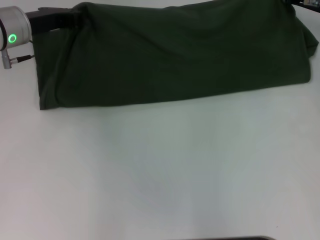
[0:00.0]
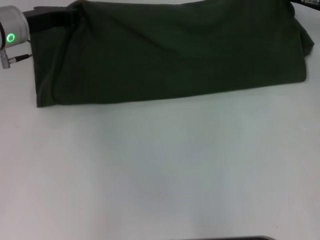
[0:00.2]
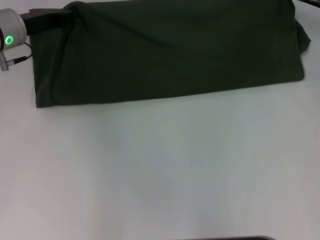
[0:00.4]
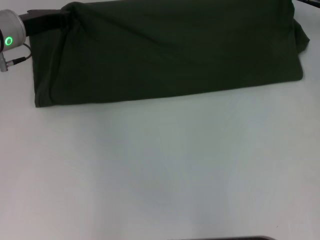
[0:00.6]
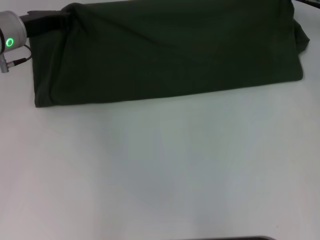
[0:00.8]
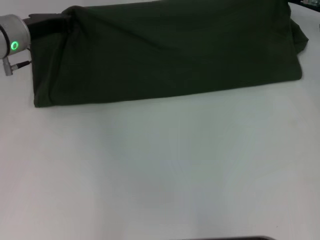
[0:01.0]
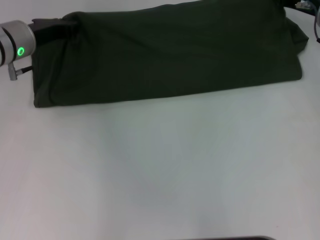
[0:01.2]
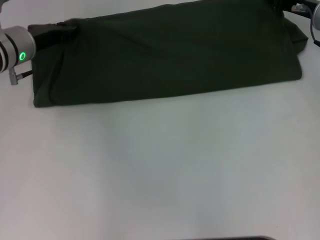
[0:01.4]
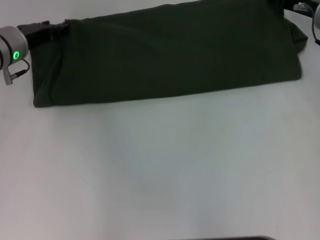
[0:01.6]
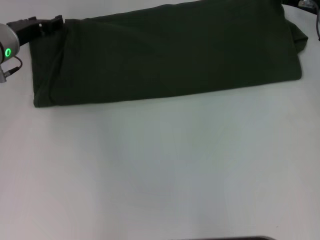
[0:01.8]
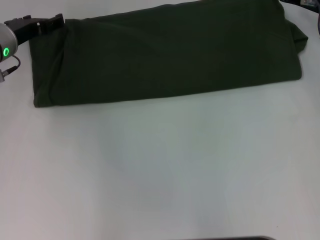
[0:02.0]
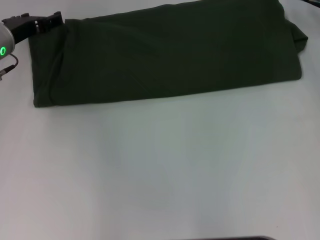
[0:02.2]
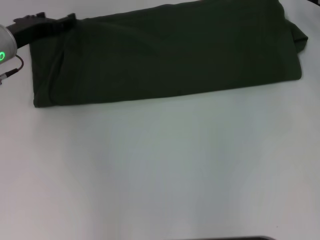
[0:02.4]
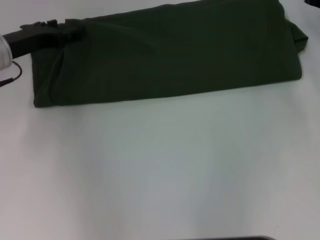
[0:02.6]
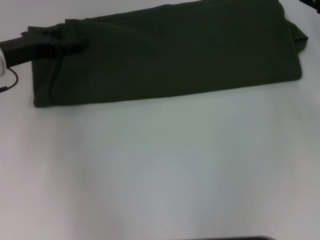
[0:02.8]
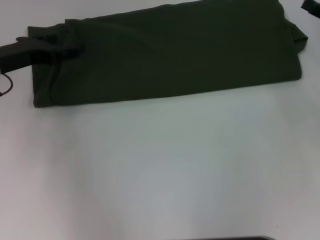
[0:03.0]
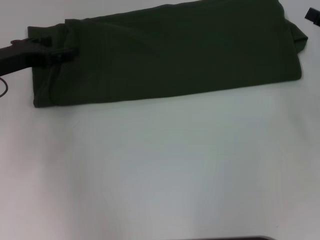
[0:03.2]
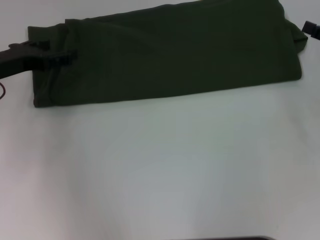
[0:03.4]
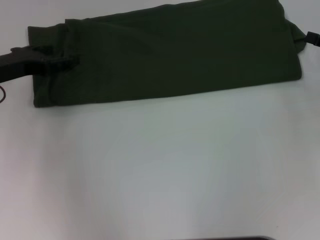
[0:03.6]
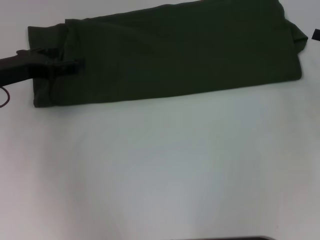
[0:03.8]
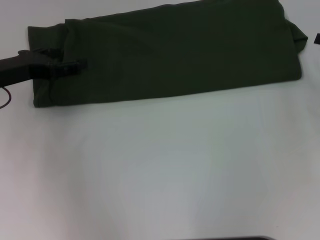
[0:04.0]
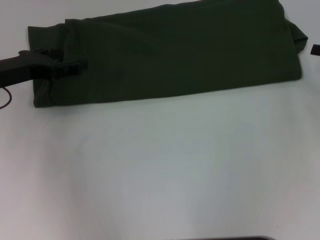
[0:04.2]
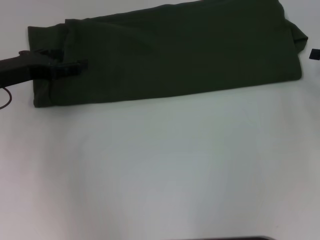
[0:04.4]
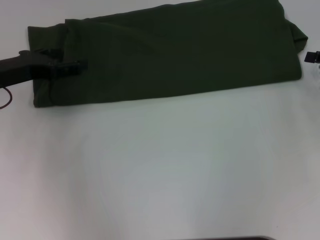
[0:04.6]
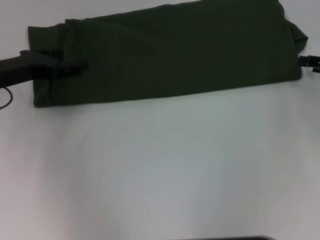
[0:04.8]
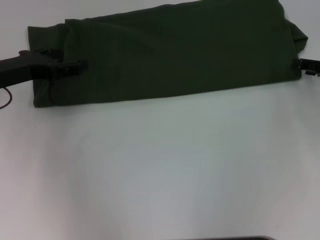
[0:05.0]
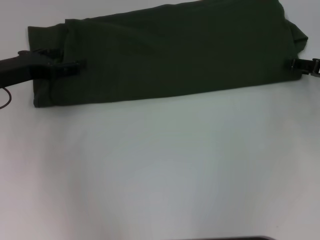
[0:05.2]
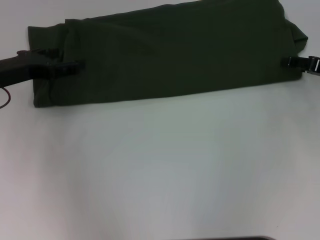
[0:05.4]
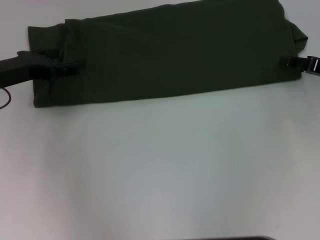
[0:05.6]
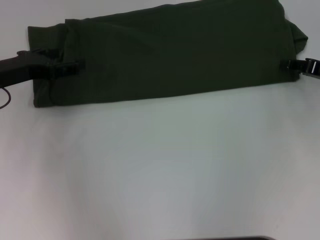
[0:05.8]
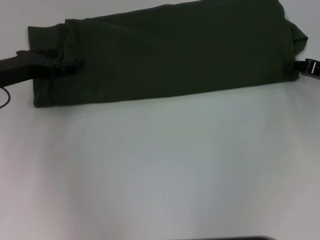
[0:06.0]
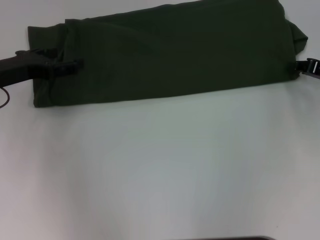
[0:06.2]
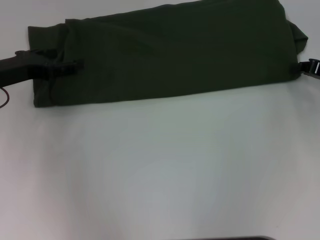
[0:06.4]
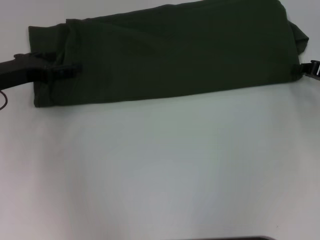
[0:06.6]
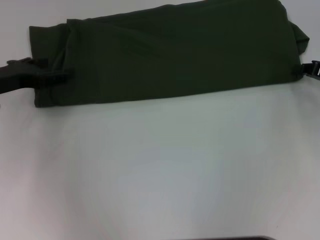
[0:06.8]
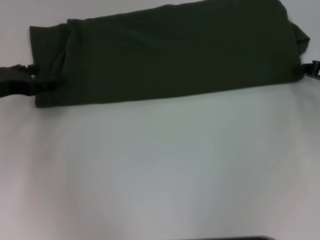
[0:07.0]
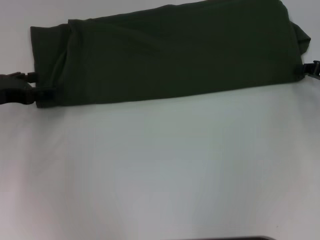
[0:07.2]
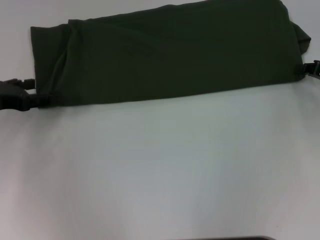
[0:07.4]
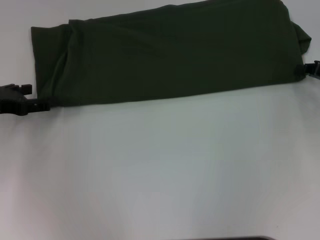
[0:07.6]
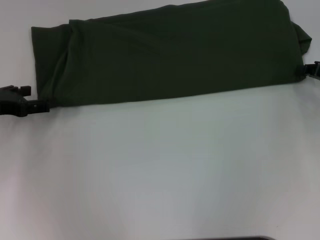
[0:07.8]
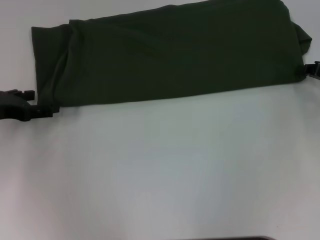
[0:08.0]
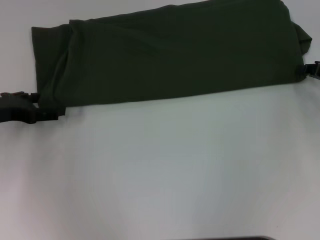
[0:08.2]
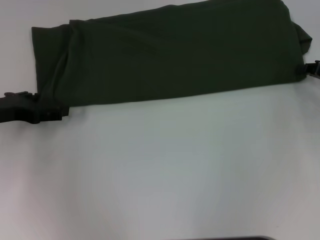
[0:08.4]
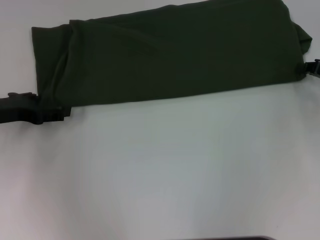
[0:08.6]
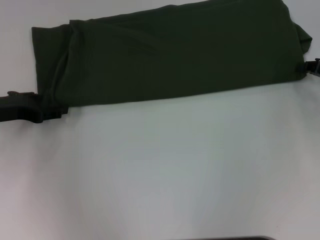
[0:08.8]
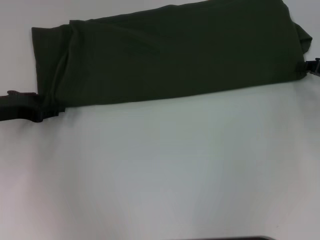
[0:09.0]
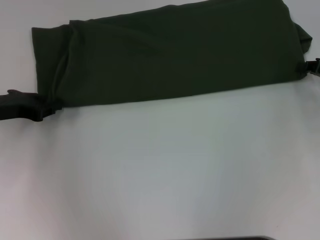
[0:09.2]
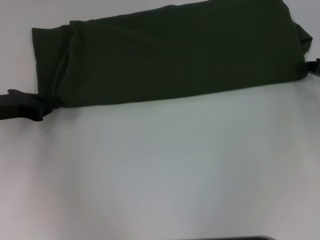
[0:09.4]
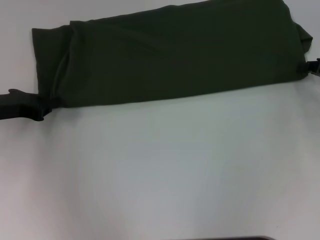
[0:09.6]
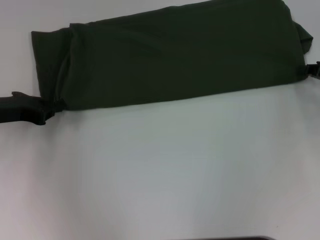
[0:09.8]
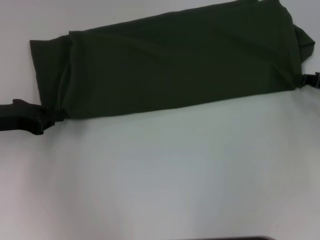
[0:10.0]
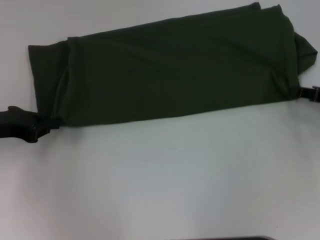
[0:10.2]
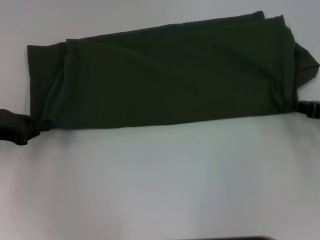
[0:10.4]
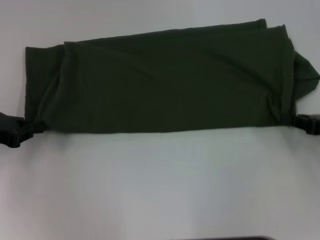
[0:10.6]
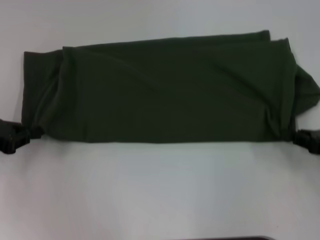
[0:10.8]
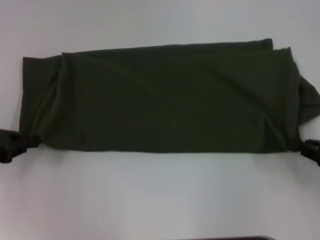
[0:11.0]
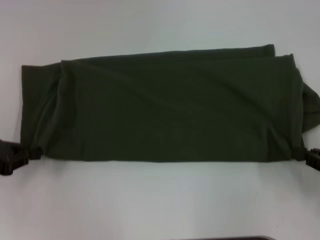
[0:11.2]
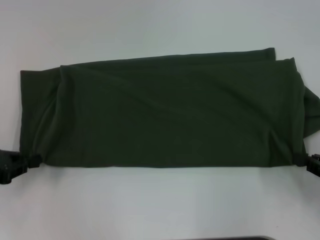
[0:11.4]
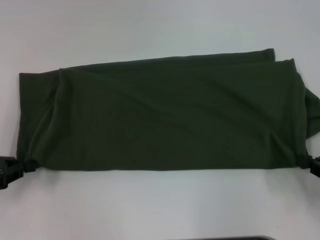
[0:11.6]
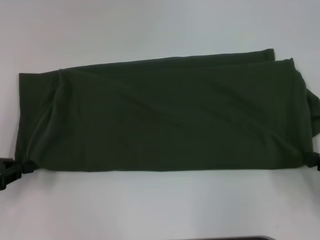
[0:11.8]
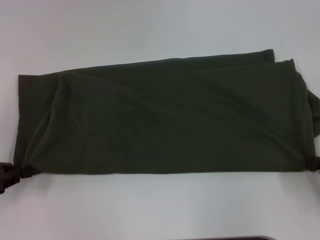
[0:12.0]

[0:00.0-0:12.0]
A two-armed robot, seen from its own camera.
Step, 0:00.0 to 0:02.2: Fold the clothes with your left hand.
Step, 0:00.0 to 0:02.2: Fold the clothes with your right hand.
0:00.0 to 0:01.6: The left gripper opens its fingers, while the right gripper opens up.
0:01.6 to 0:03.0: The left gripper shifts about 5 cm backward, and opens its fingers. Meanwhile the right gripper is displaced backward and to the right by roughly 10 cm, and opens.
0:04.4 to 0:06.0: The right gripper changes place by roughly 5 cm.
0:06.0 to 0:07.6: The left gripper changes place by some 5 cm; the right gripper closes its fingers.
0:07.6 to 0:09.0: The grippers make only small movements.
0:09.0 to 0:10.4: The right gripper goes about 5 cm backward. Meanwhile the left gripper closes.
0:10.4 to 0:12.0: The right gripper moves backward, roughly 10 cm; the left gripper moves backward, about 5 cm.

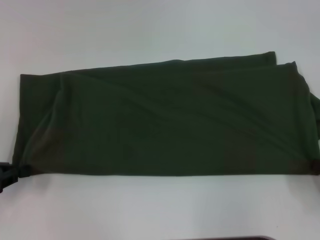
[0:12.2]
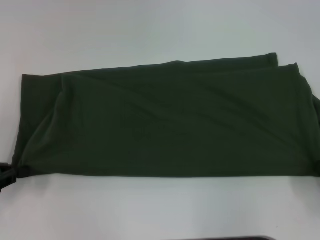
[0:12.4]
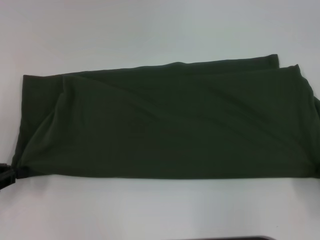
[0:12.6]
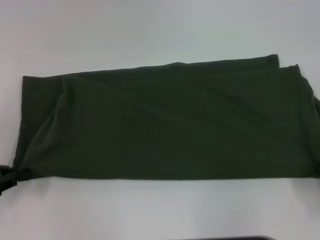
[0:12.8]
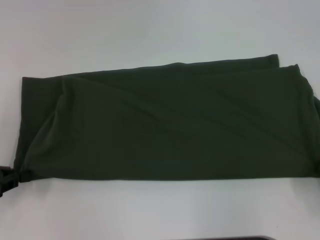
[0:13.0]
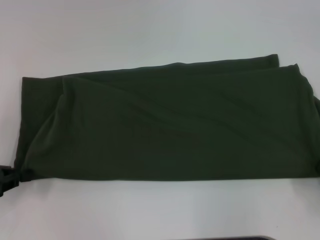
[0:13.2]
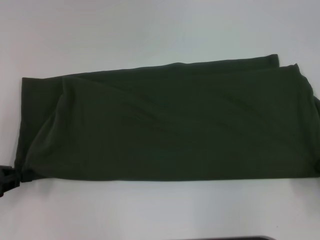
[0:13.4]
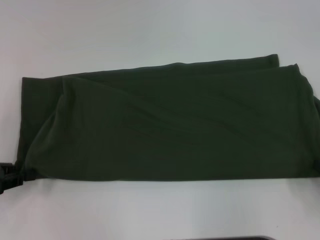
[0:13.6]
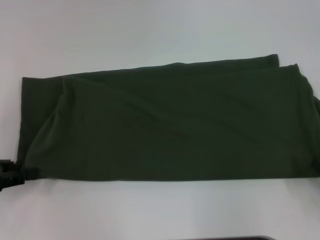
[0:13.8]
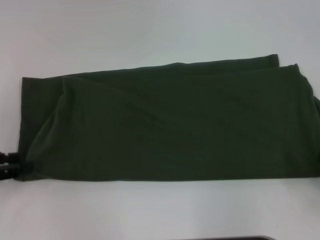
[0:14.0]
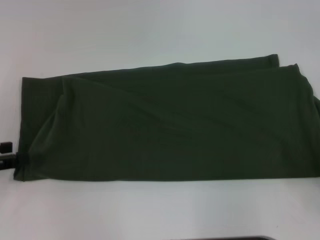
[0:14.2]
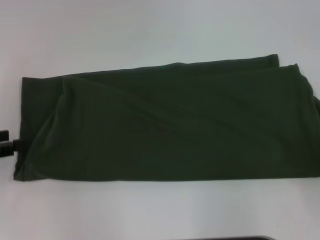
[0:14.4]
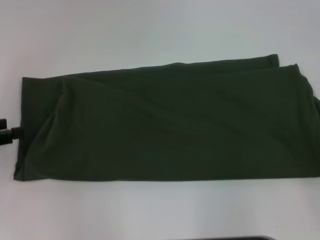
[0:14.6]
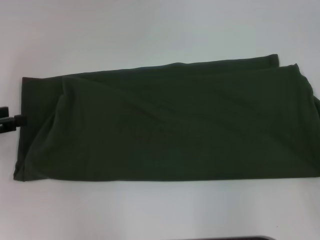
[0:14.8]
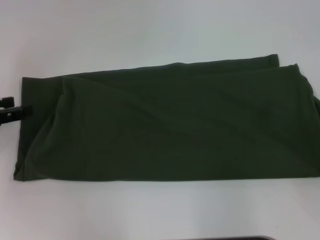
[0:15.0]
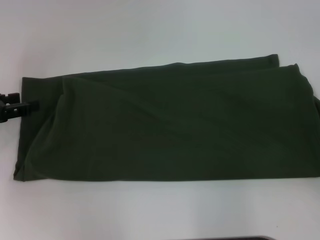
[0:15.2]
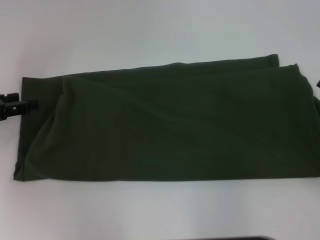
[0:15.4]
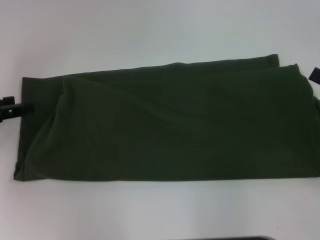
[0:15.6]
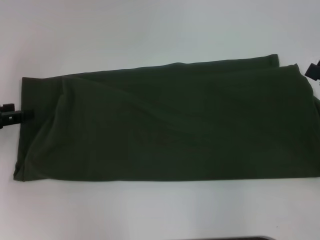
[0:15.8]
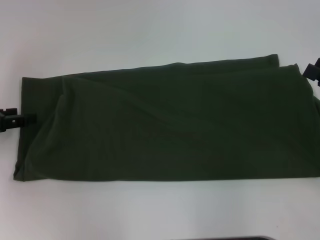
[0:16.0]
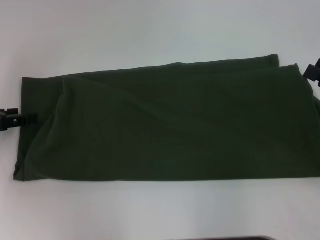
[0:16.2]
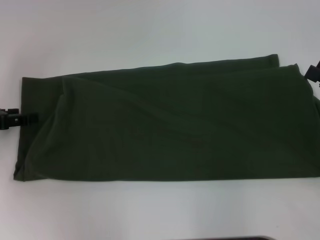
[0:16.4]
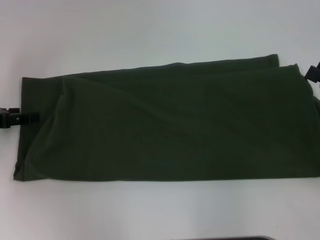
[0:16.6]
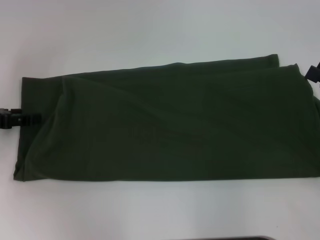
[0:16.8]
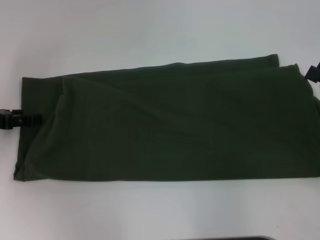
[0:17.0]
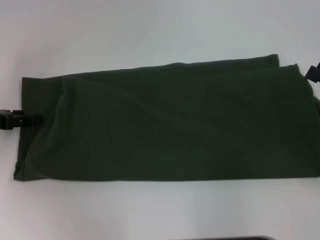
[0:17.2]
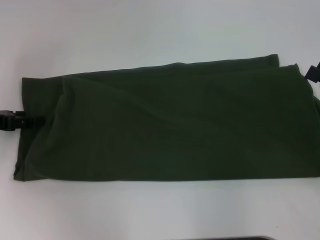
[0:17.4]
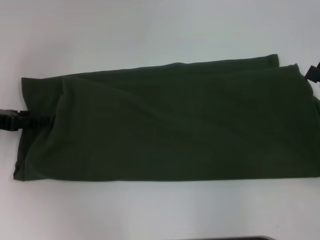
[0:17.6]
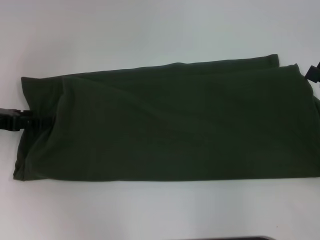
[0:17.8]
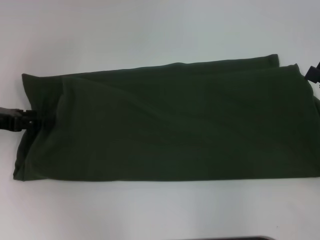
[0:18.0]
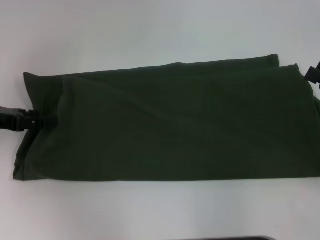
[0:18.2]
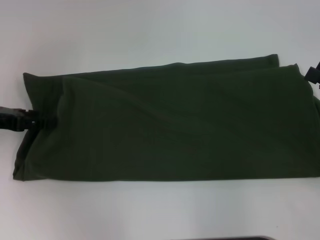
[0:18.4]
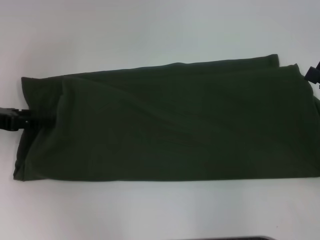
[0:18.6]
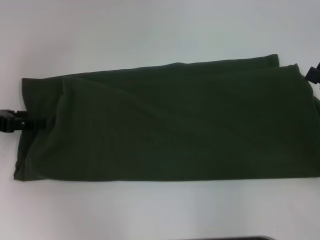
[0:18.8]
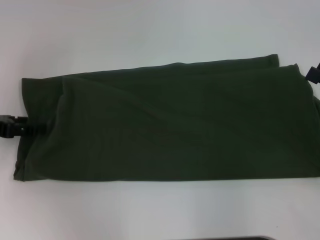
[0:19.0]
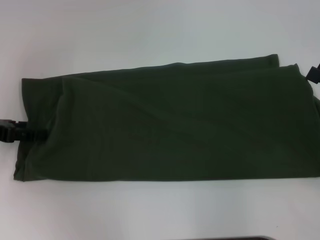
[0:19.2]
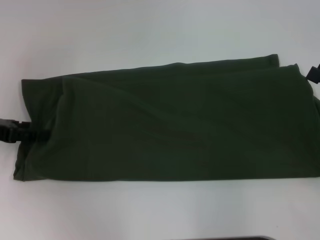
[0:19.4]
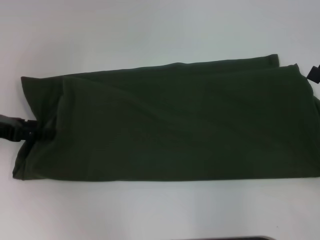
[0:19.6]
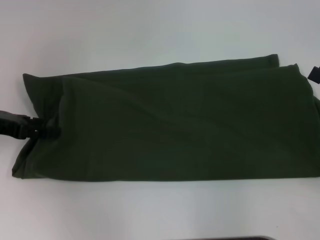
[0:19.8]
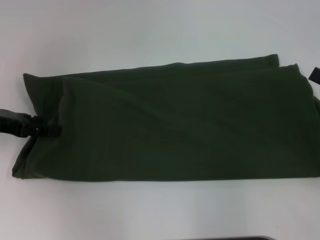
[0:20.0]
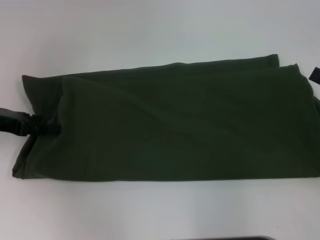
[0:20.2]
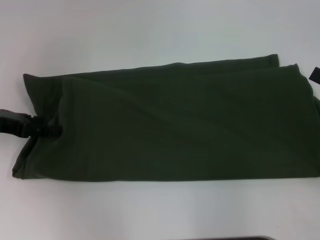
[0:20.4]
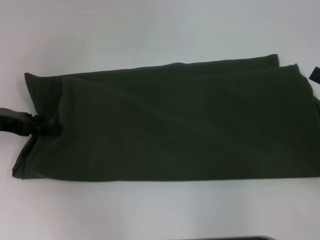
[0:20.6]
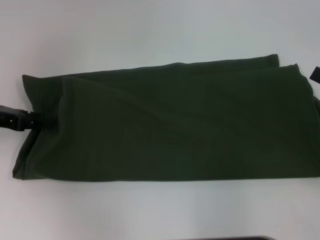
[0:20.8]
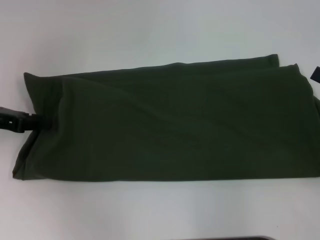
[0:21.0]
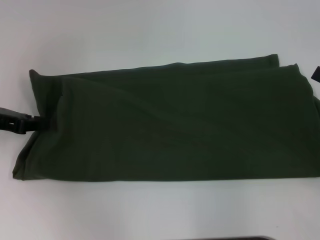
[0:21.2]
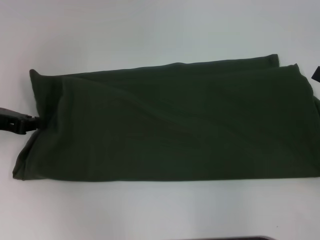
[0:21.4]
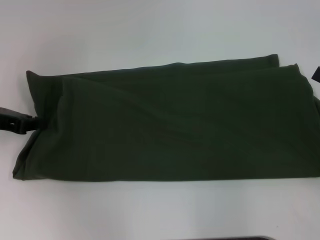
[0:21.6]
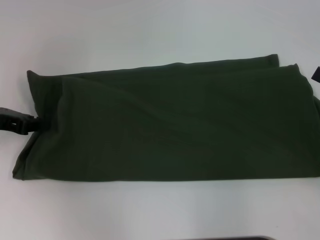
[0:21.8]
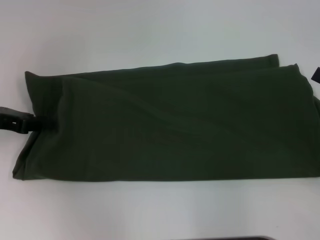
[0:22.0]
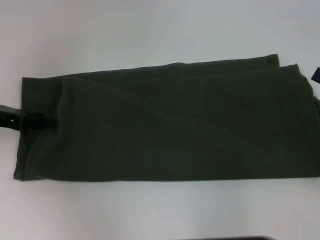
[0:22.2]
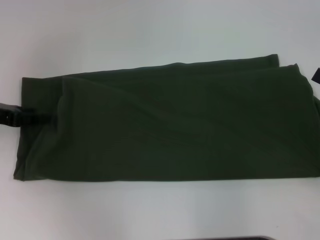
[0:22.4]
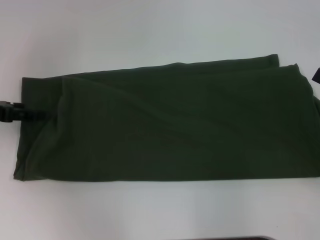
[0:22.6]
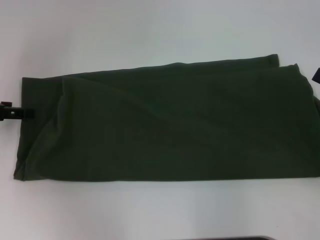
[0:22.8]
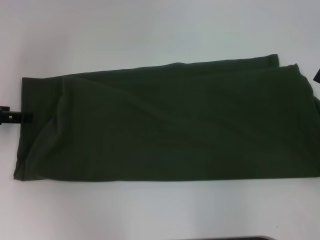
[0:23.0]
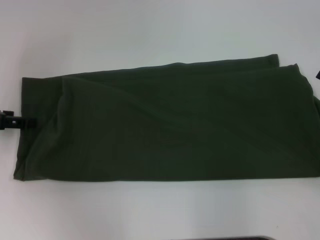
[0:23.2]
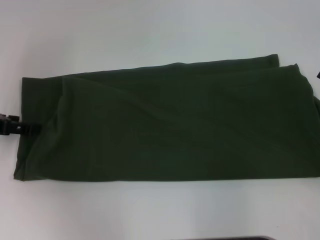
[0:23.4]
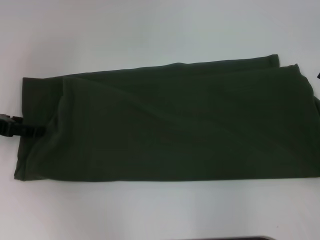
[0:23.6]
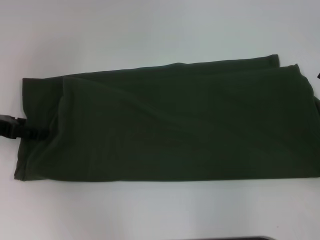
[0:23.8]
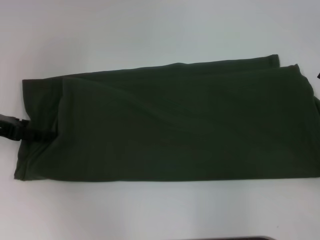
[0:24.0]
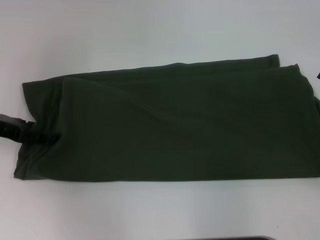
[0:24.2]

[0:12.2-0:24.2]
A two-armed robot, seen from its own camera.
Step, 0:12.2 to 0:14.8: Pull the clothes with your left hand.
Step, 0:12.2 to 0:14.8: Pull the clothes with your right hand.
0:12.2 to 0:13.8: Both grippers stay put.
0:13.8 to 0:15.2: The left gripper is displaced forward by about 5 cm, and opens its fingers.
0:16.6 to 0:19.8: There are only small adjustments of the grippers.
0:19.8 to 0:21.2: The left gripper closes its fingers.
0:21.2 to 0:22.6: The left gripper opens its fingers.
0:22.6 to 0:24.2: The grippers move only a little.
